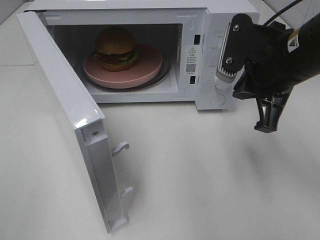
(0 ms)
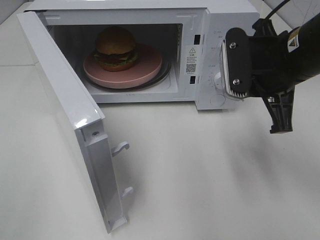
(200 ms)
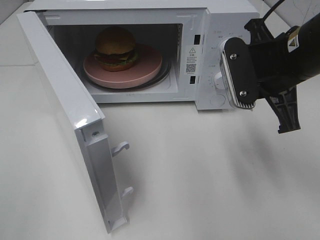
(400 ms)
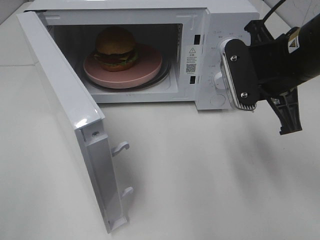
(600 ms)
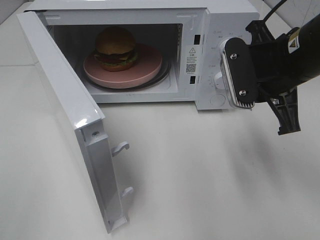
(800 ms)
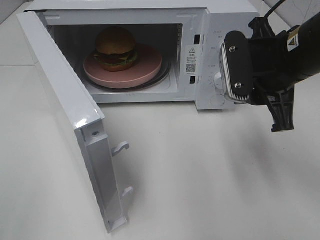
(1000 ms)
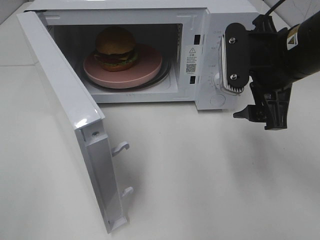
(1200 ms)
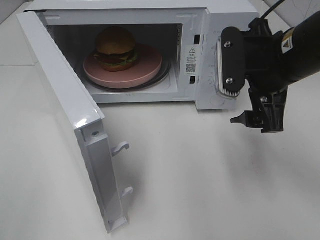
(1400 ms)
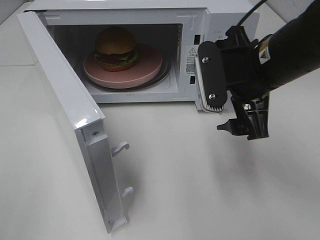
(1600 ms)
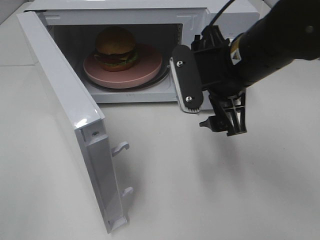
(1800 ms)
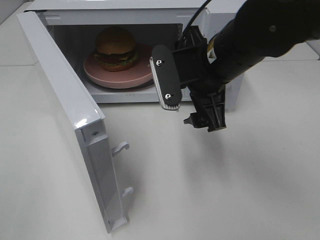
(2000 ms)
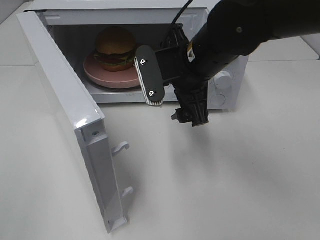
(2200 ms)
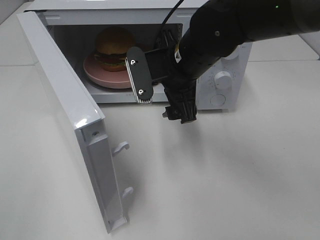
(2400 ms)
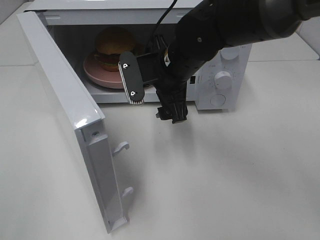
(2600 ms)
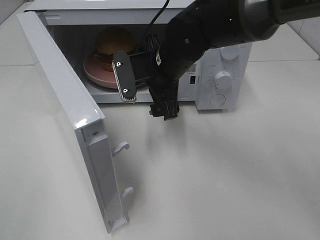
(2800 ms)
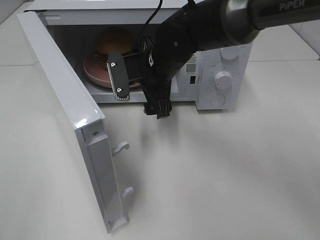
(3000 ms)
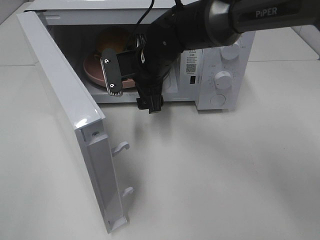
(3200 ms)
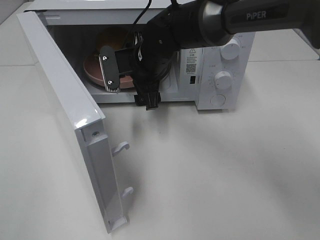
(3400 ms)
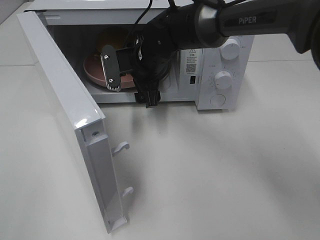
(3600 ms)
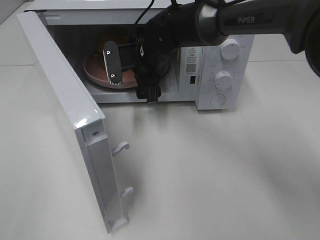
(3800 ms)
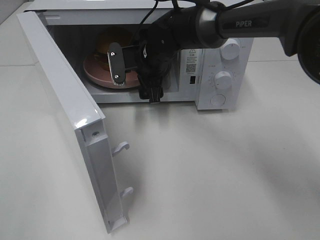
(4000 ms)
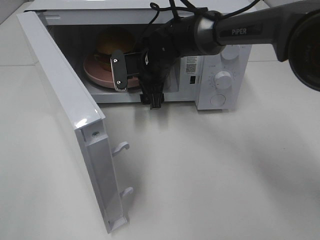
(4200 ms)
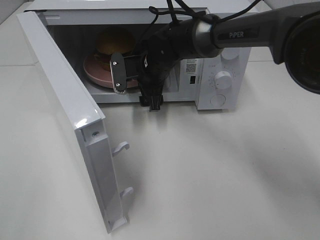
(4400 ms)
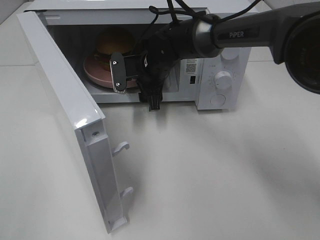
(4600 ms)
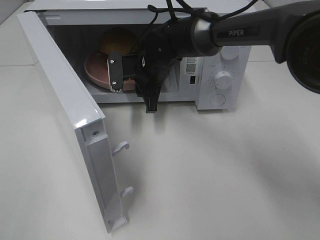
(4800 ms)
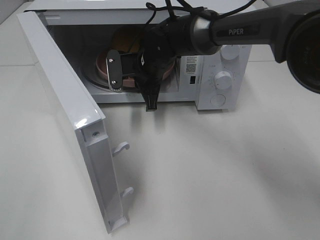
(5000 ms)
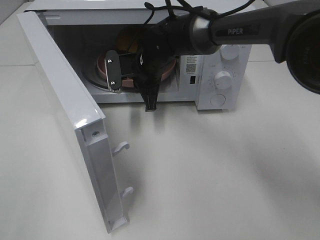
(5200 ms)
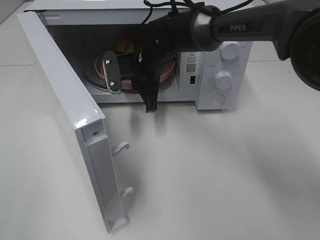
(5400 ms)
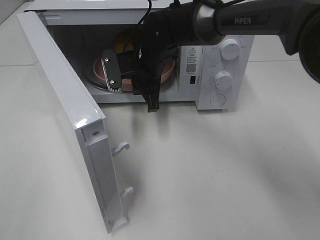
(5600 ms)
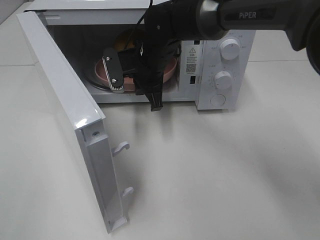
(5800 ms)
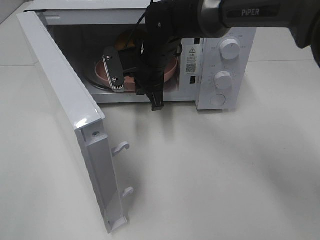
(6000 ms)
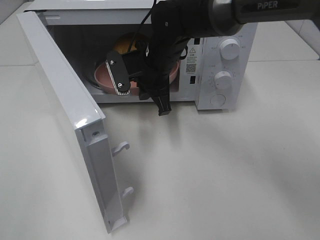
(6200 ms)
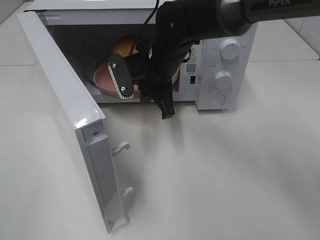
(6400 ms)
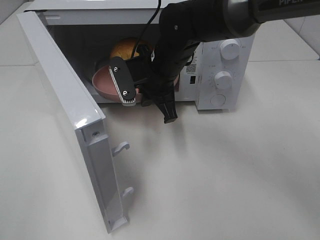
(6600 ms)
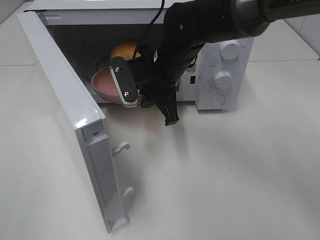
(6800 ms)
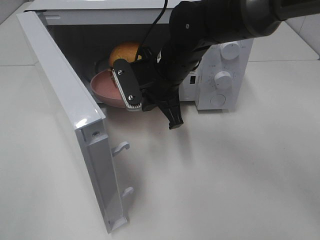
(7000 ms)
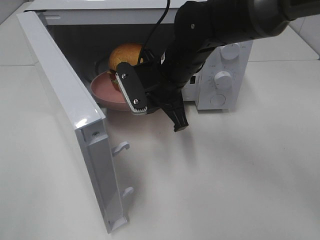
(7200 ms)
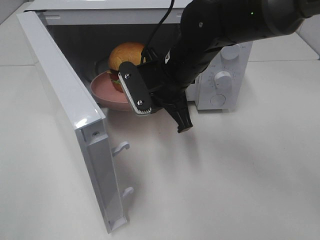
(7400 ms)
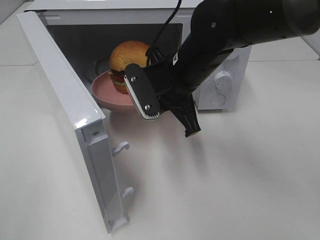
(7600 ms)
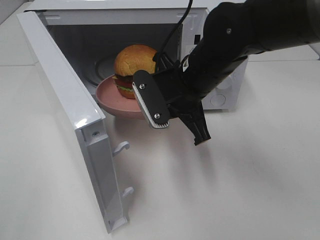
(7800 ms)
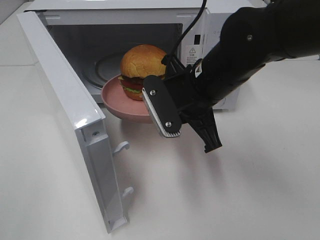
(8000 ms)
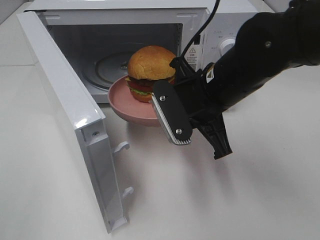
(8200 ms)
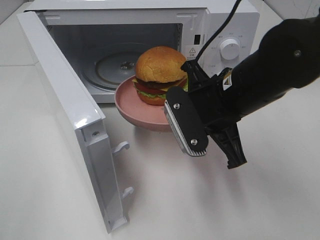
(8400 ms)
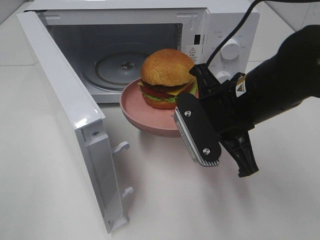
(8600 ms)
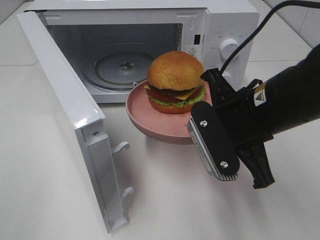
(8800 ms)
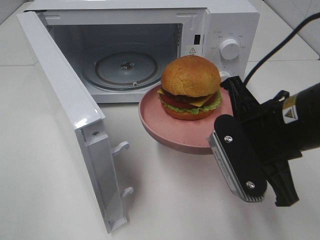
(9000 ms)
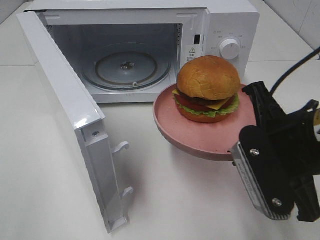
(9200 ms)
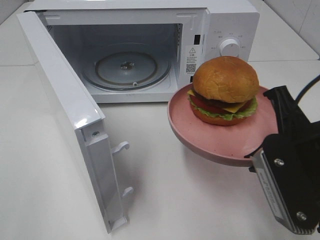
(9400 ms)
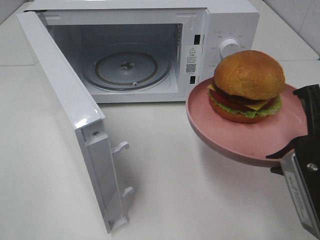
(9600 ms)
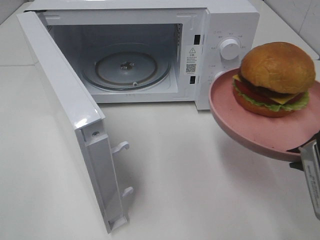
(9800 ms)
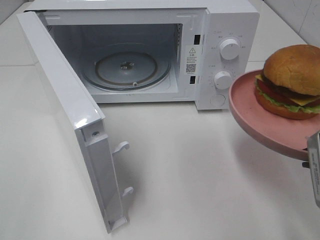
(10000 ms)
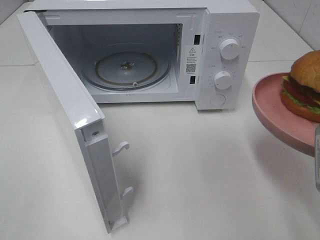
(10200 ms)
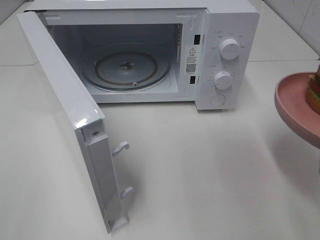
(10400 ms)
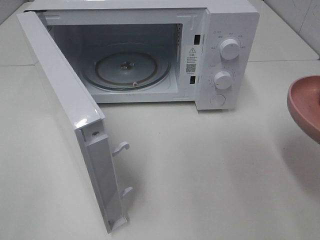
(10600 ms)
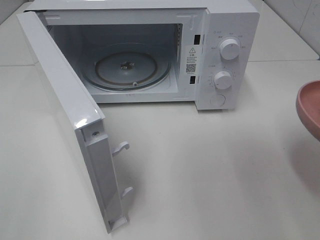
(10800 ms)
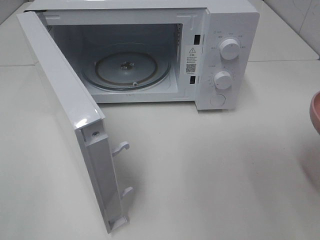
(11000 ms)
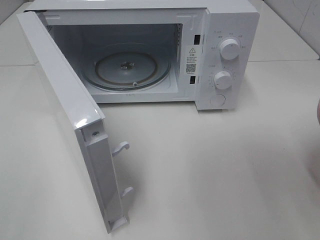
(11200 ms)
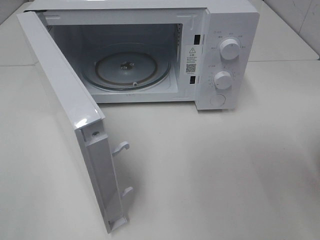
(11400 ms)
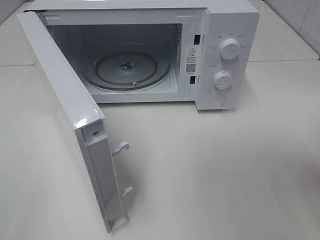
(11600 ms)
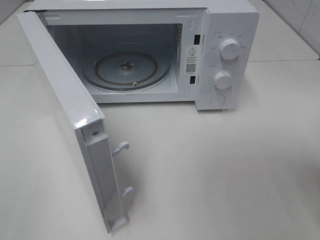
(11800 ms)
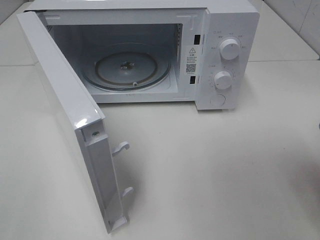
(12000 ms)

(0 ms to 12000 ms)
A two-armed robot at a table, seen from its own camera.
Task of the whole recording: Heat the burger.
Step, 0 ms - 5200 ms: Right hand: grab the plate with the hamburger.
0 ms - 1600 ms: The right gripper opens.
1600 ms - 3000 ms: The right gripper goes approximately 20 cm to the left, forward and downward.
3000 ms - 4400 ms: The right gripper shifts approximately 5 cm forward.
4400 ms - 6000 ms: The right gripper closes.
6000 ms - 7600 ms: The right gripper goes about 10 cm backward and to the right.
7600 ms - 9000 ms: The right gripper travels backward and to the right by about 15 cm.
9000 ms - 10400 ms: The right gripper travels to the right and backward by roughly 10 cm.

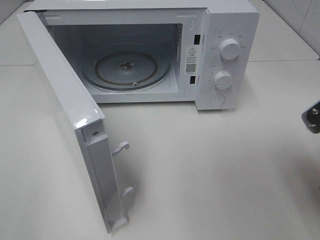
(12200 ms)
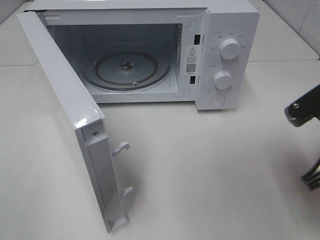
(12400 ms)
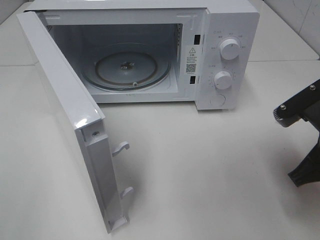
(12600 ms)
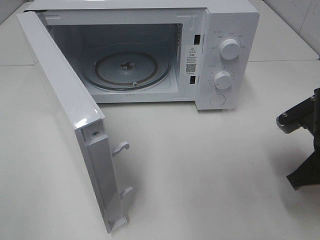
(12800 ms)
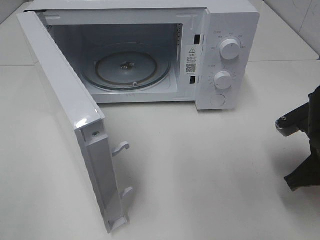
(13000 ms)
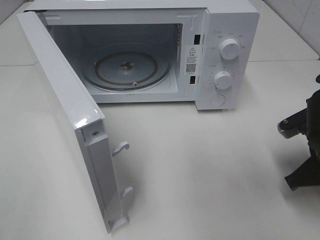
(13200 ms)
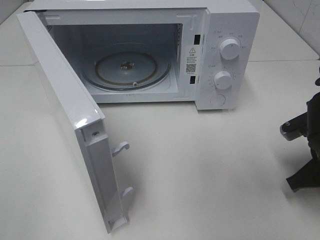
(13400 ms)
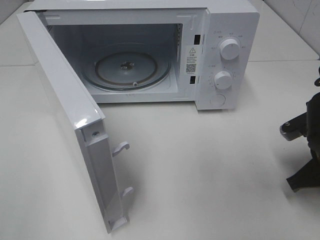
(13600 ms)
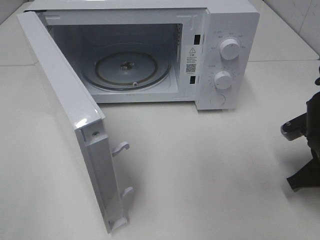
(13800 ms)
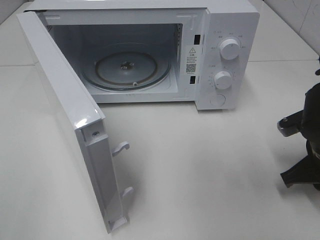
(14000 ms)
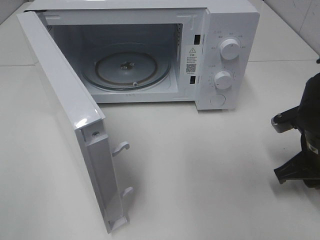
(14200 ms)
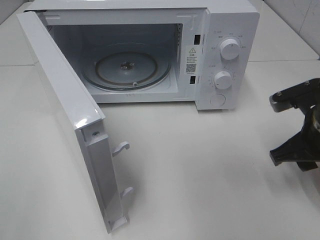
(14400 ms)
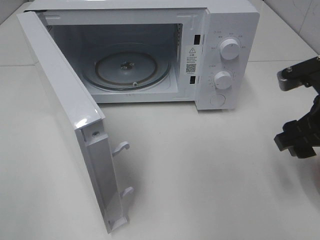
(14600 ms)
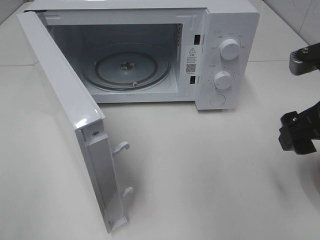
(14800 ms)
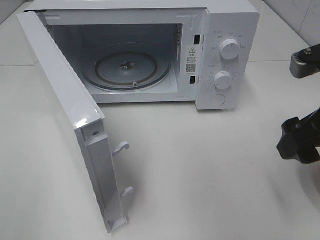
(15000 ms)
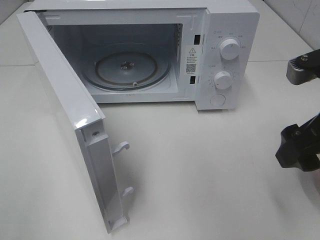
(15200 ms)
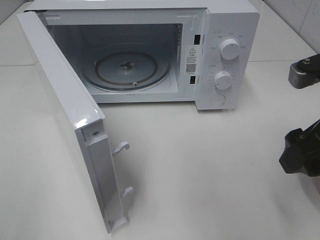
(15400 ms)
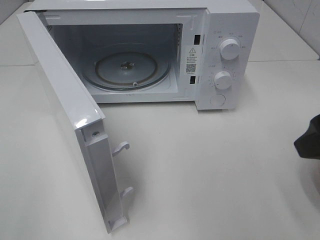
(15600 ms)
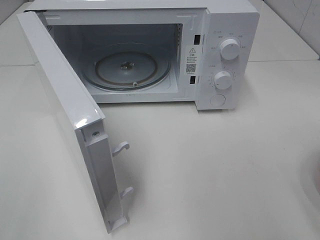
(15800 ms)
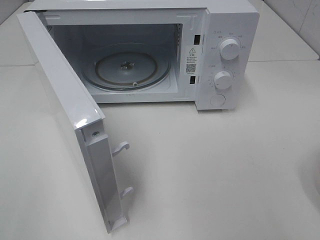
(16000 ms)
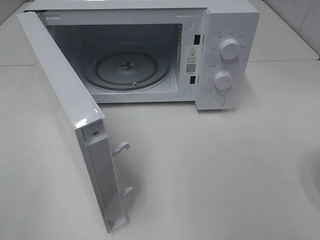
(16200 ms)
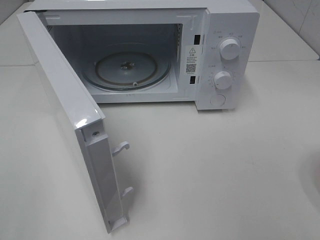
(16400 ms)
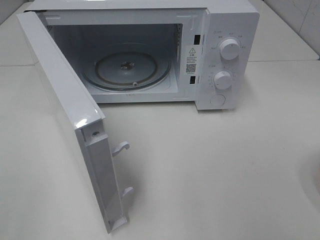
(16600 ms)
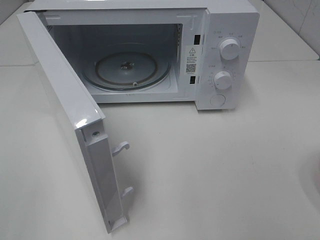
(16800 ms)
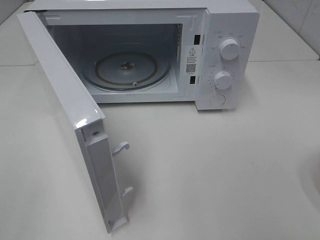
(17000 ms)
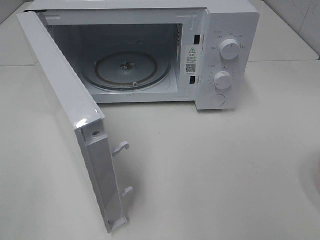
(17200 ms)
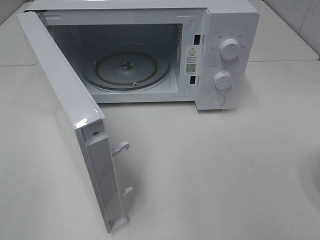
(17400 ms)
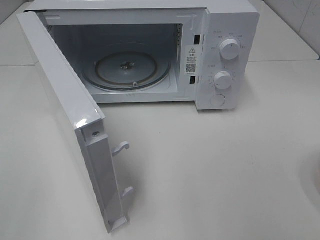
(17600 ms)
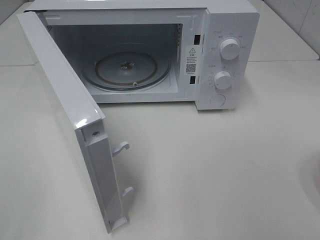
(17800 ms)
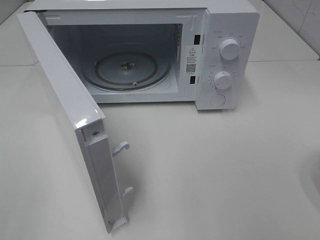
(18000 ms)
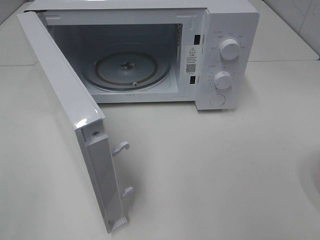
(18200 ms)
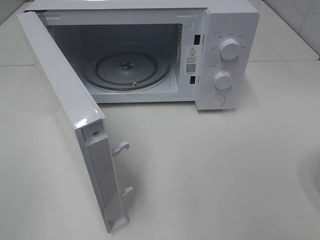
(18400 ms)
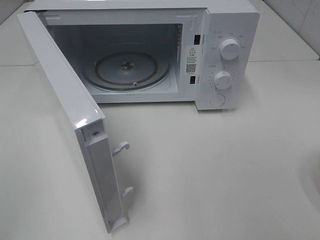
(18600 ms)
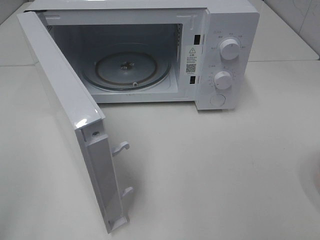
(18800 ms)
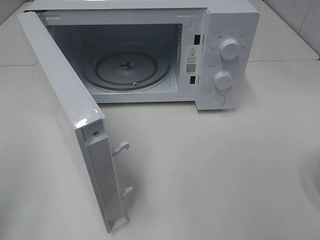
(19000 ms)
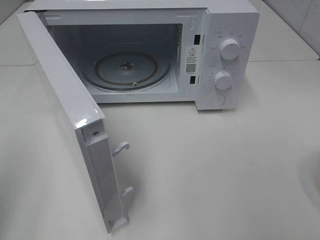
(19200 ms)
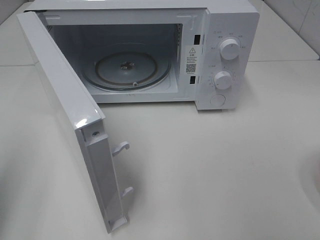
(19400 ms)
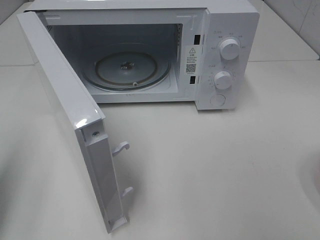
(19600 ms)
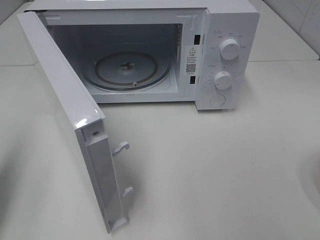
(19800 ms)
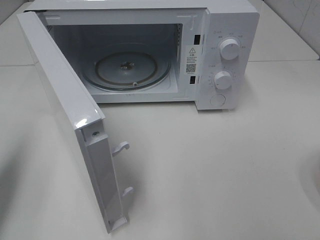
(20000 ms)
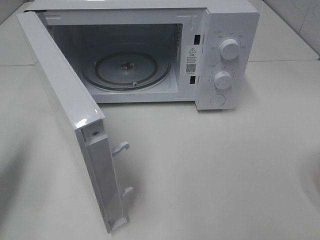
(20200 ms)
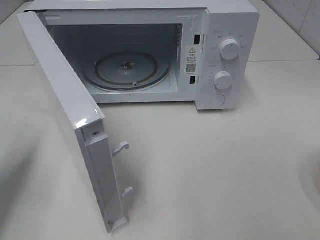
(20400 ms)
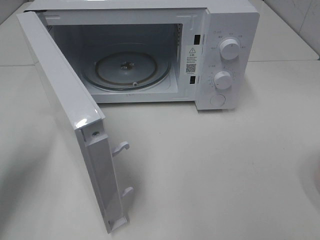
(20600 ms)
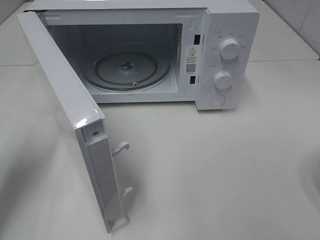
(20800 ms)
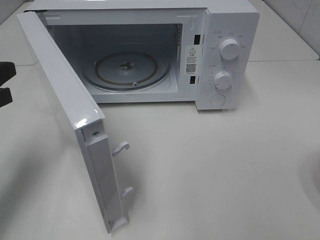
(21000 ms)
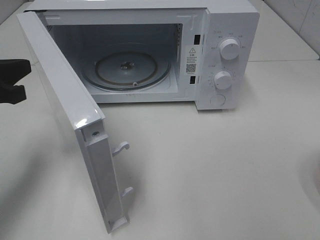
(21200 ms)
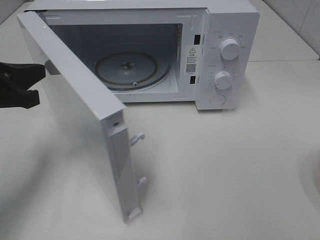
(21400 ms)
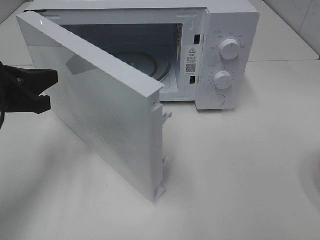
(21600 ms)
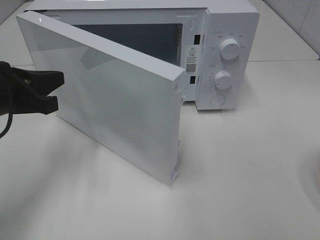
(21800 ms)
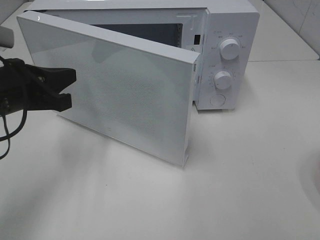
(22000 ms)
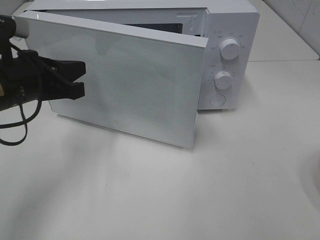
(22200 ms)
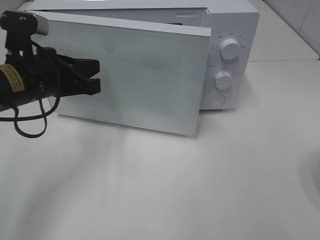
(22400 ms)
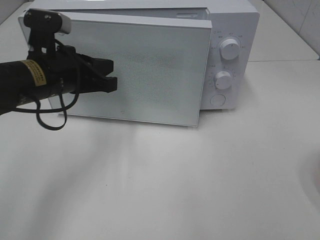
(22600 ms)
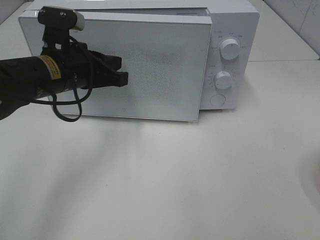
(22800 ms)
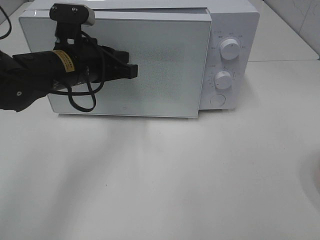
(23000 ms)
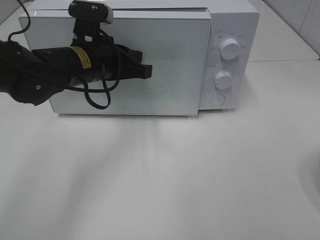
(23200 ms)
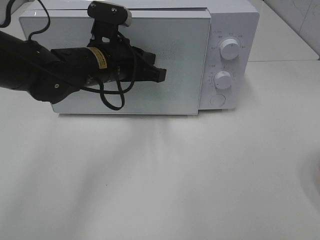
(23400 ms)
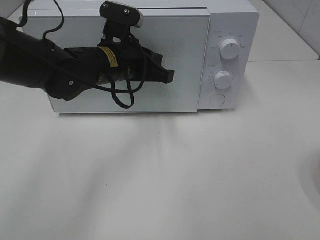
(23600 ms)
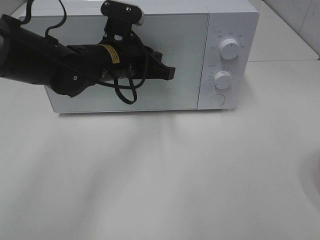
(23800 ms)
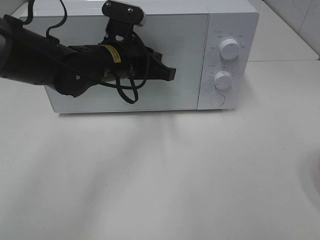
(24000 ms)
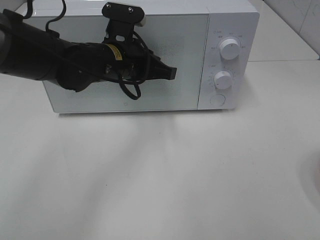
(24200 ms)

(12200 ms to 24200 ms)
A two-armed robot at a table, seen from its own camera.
Task of the whole recording: Heat the burger.
Step, 14200 ms - 24200 ms: Left hand: close the microwave door.
12200 ms - 13800 ms: The right gripper heads downward and forward, covering some 10 cm.
13800 ms - 15200 ms: The right gripper heads upward, covering about 15 cm, and opens its fingers.
15200 ms - 16600 ms: The right gripper shifts roughly 20 cm backward.
16600 ms - 18200 ms: Both grippers stay about where they are.
18200 ms - 19800 ms: The left gripper moves forward, some 15 cm, and closes its fingers.
19800 ms - 21200 ms: The left gripper travels forward and to the right by approximately 10 cm.
21200 ms - 22600 ms: The left gripper moves to the right and forward, about 15 cm.
22600 ms - 24200 ms: The left gripper travels to the right by approximately 10 cm.
